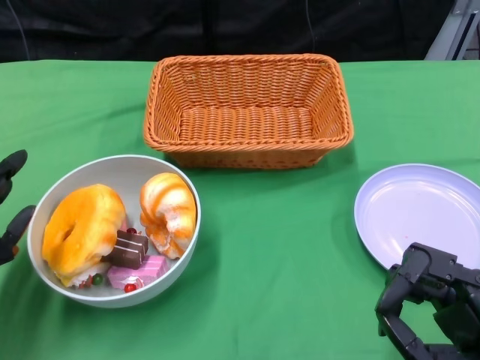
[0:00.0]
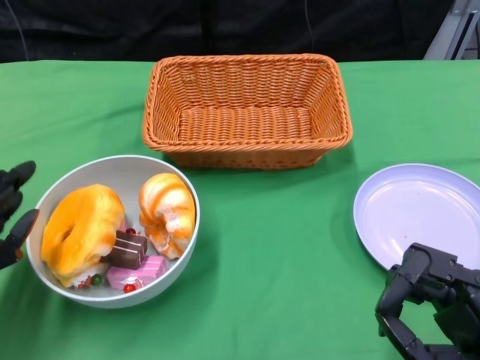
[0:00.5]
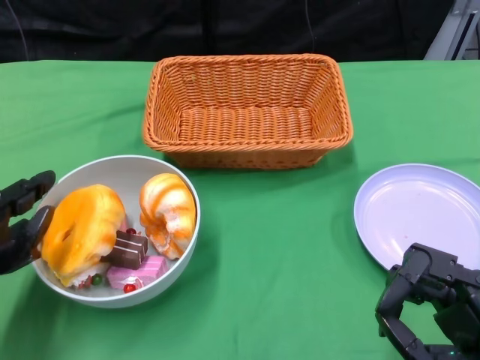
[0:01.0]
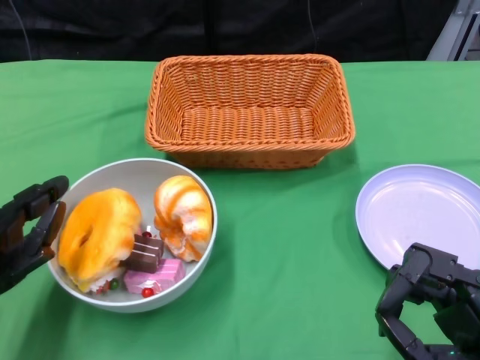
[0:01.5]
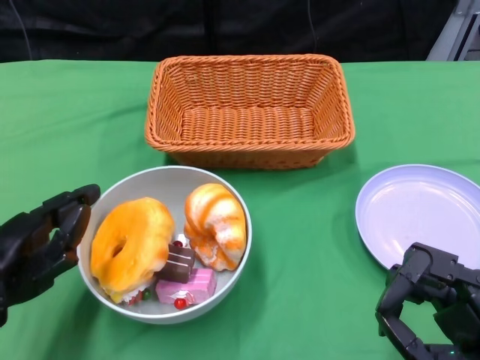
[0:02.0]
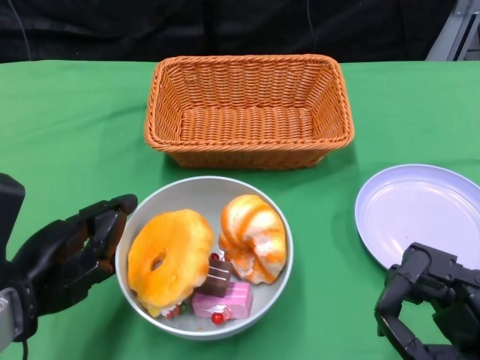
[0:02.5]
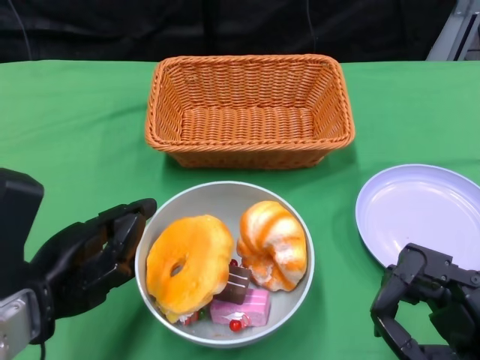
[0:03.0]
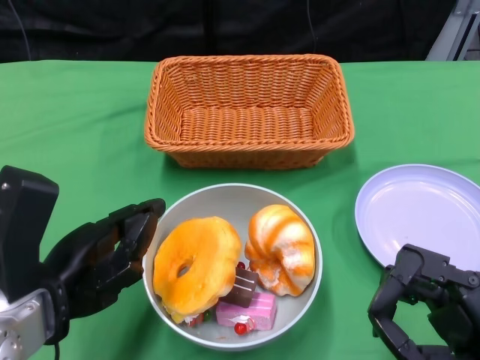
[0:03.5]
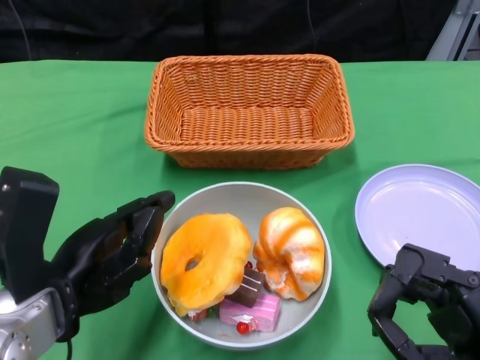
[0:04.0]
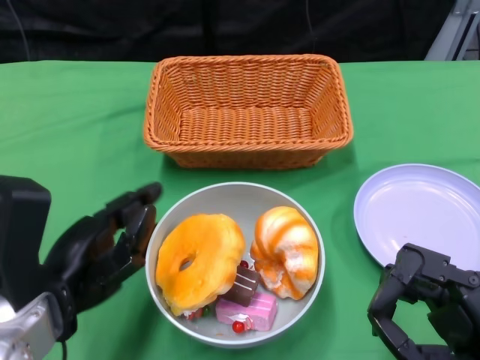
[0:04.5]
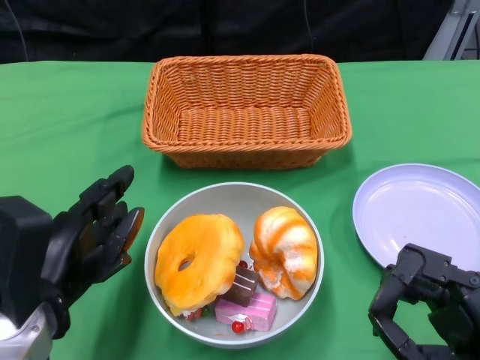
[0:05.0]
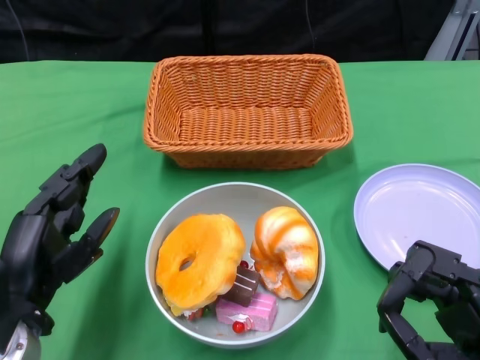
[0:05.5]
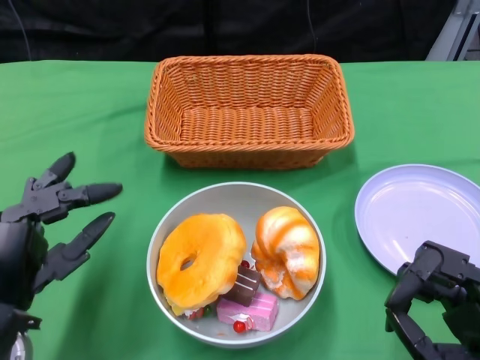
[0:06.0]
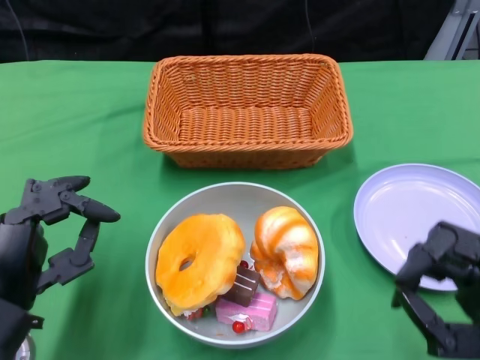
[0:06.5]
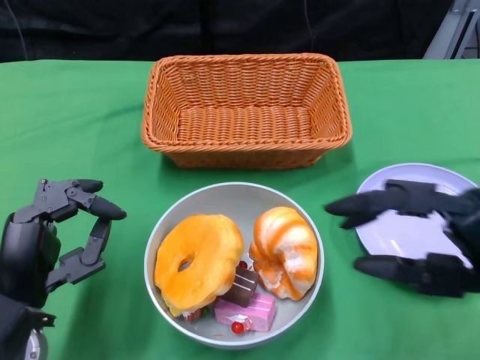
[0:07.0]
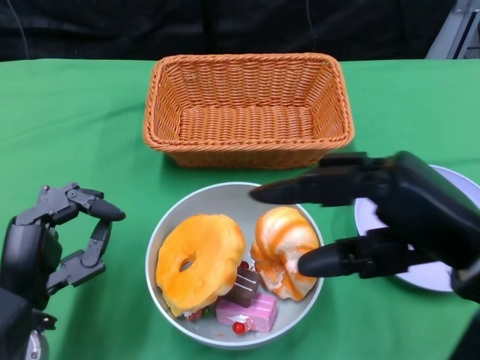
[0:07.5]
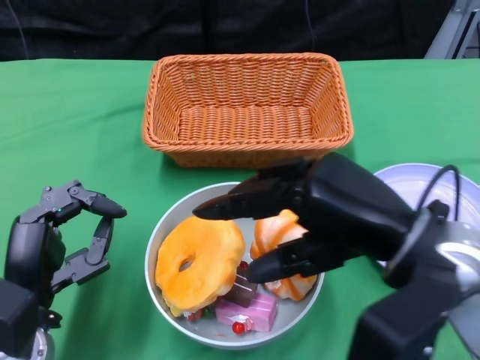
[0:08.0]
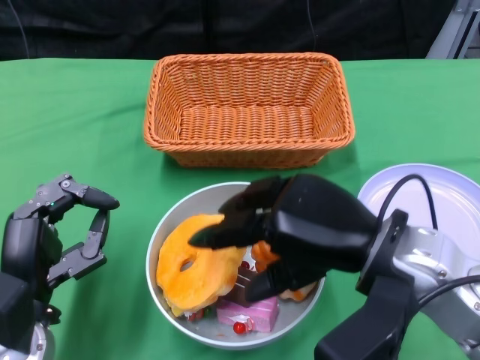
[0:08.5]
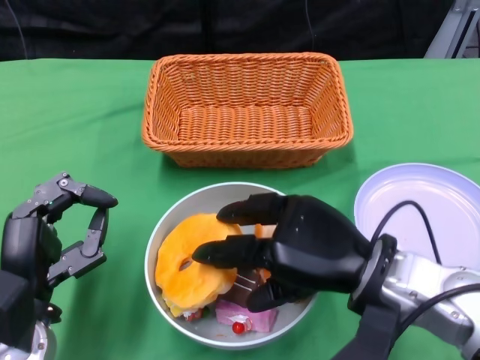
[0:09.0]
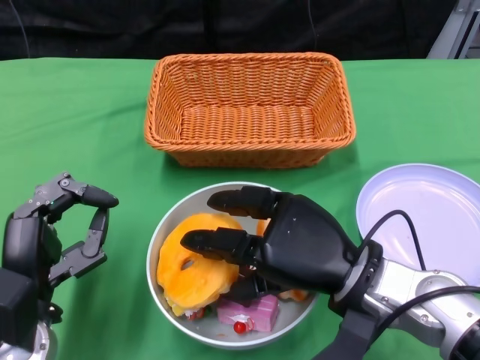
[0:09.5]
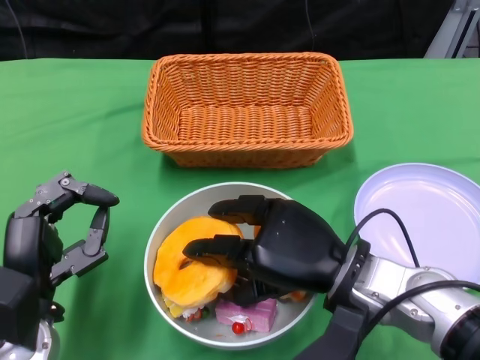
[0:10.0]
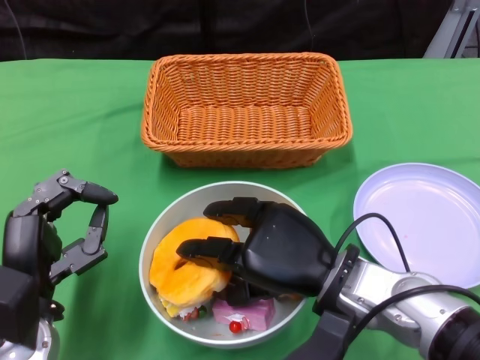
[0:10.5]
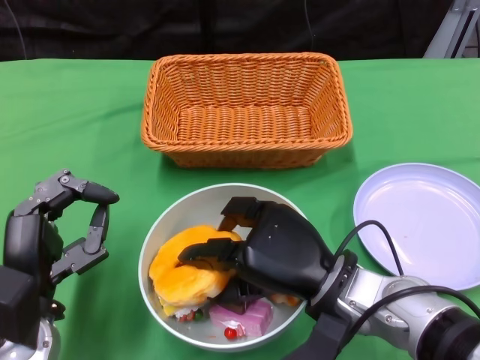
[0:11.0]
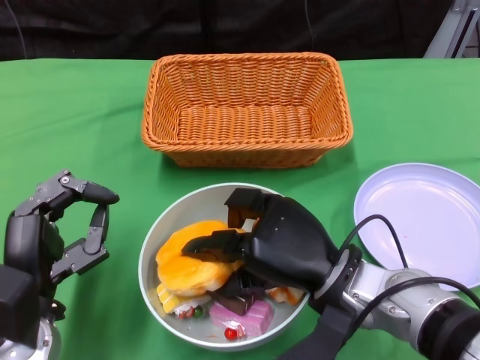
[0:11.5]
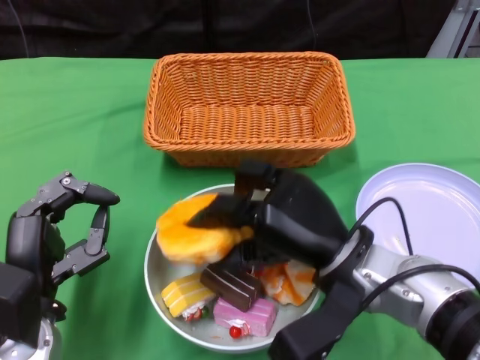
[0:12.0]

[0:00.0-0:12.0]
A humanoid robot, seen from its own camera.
Step, 0:00.0 to 0:03.5: Push the bowl to the center of the table using the left gripper.
0:02.0 to 0:04.0: The left hand is displaced to the right by about 5 cm.
0:04.0 to 0:06.0: The left hand moves downward, approximately 5 cm.
0:06.0 to 0:08.0: The right hand heads upward, forward and to the left, covering approximately 15 cm.
0:08.0 to 0:10.0: The right hand travels downward by about 10 cm.

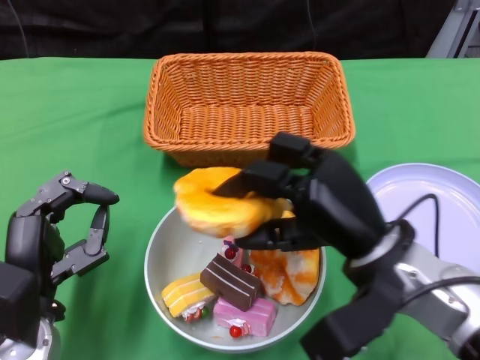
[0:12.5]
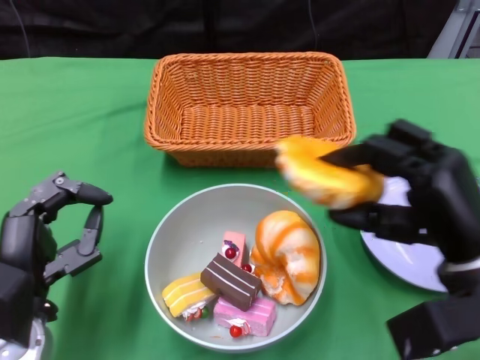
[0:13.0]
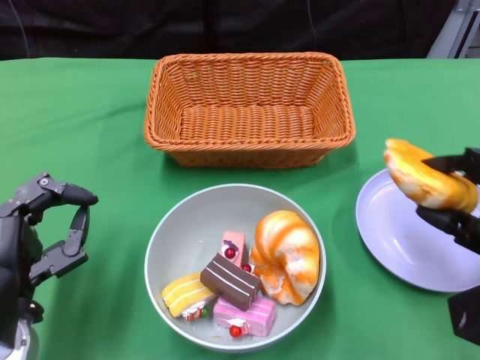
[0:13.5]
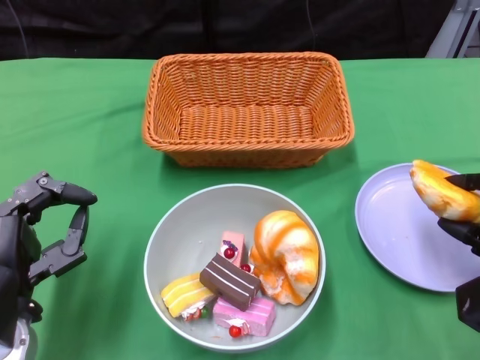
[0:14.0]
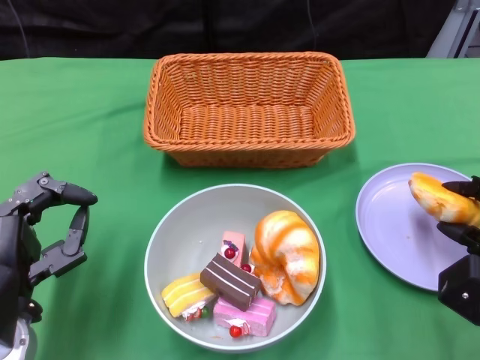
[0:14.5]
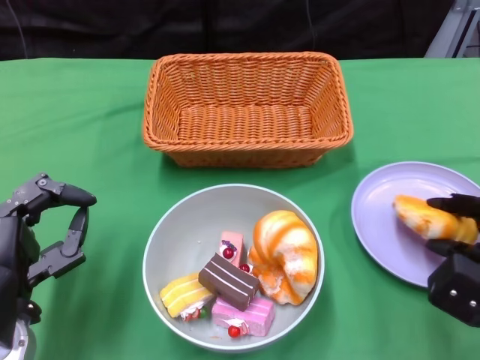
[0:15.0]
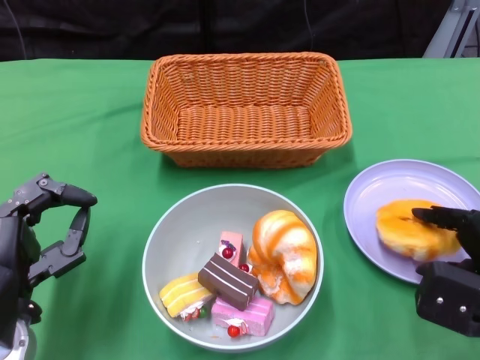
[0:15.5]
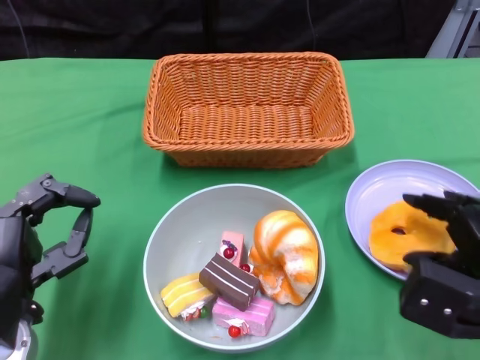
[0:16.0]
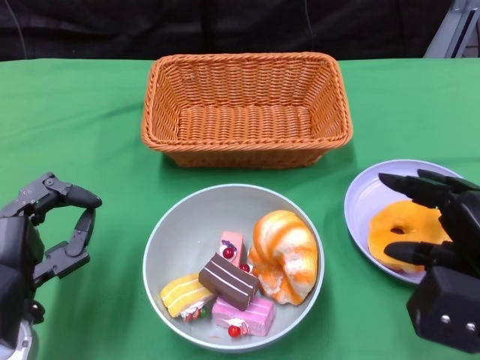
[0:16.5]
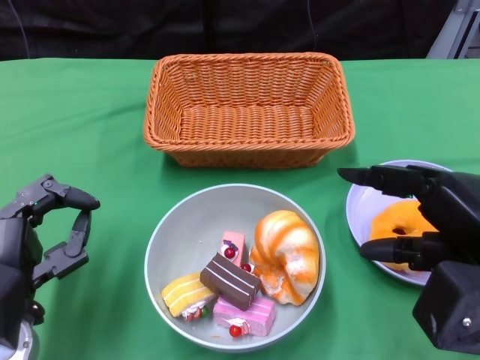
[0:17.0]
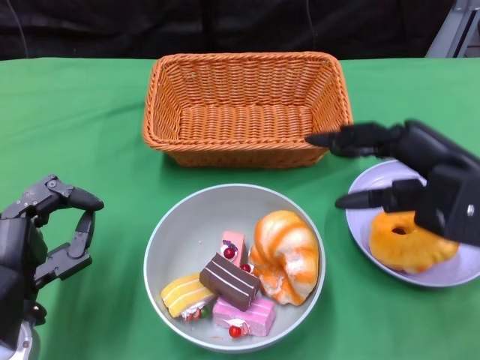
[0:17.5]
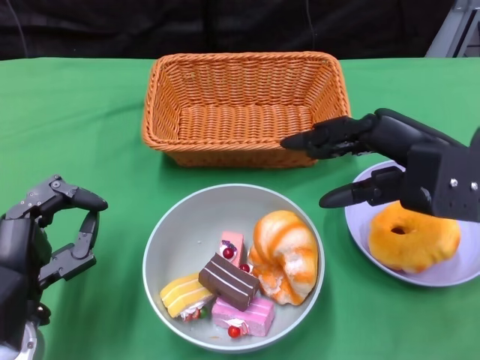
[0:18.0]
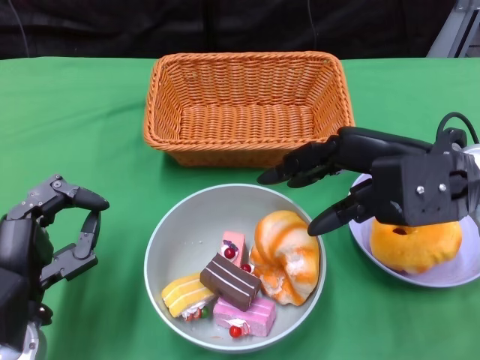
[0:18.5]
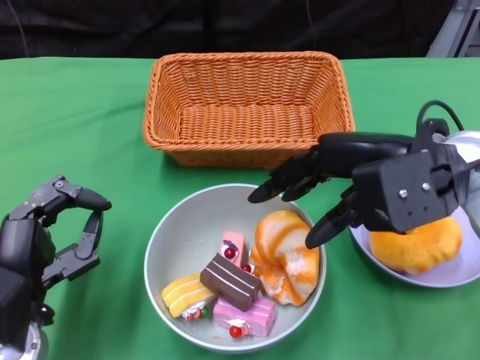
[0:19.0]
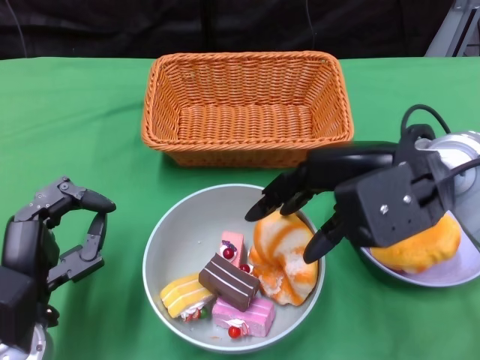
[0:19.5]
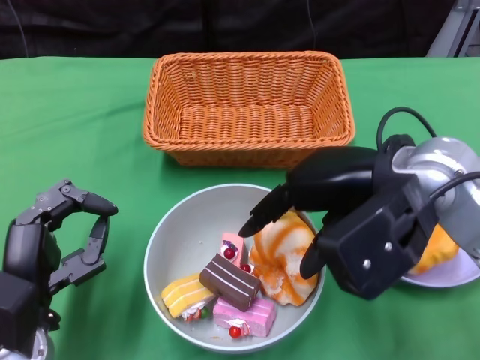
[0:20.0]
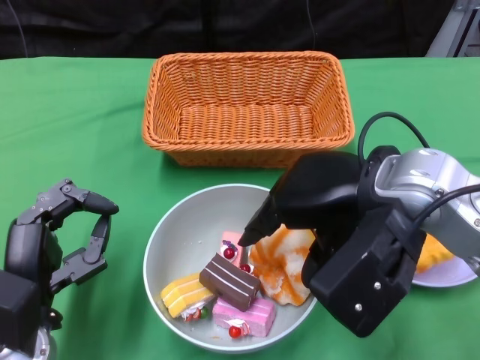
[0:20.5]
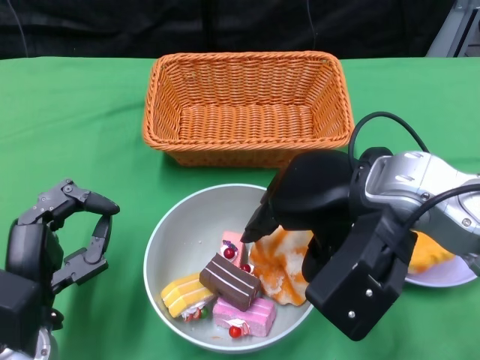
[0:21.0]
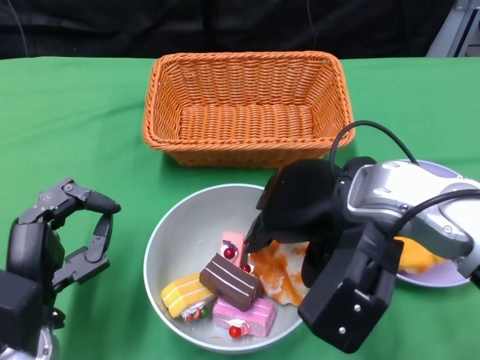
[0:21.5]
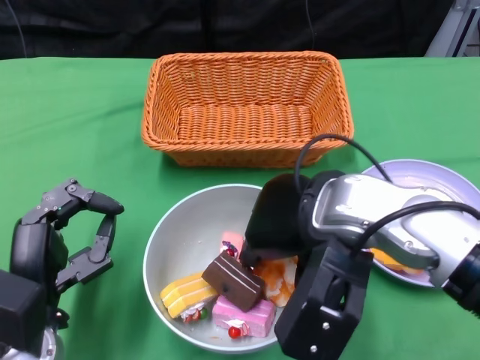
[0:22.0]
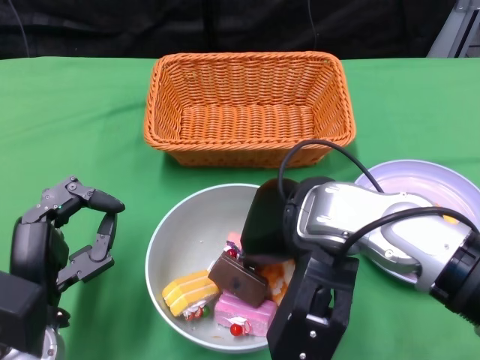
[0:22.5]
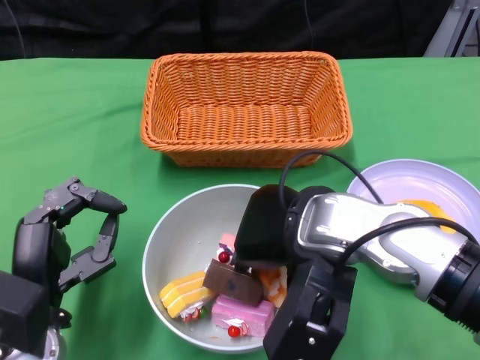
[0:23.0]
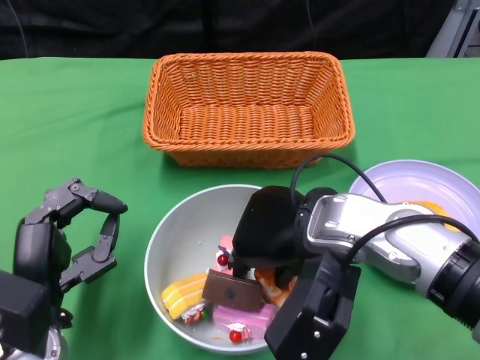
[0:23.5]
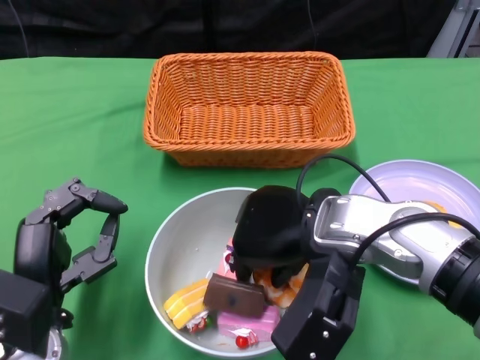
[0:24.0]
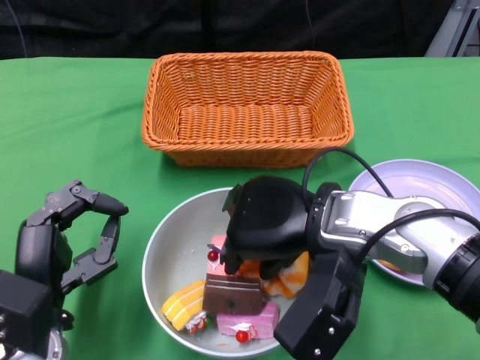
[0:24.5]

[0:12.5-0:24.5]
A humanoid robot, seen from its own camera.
0:12.5 to 0:14.5: The right hand moves to the right and downward, about 15 cm.
0:14.5 to 0:16.5: The right hand moves upward, some 5 cm.
0:16.5 to 0:18.5: The right hand is displaced forward, upward and to the left by some 15 cm.
0:18.5 to 0:20.5: The right hand shifts approximately 5 cm to the left.
0:20.5 to 0:22.5: The right hand heads to the left, covering about 5 cm.

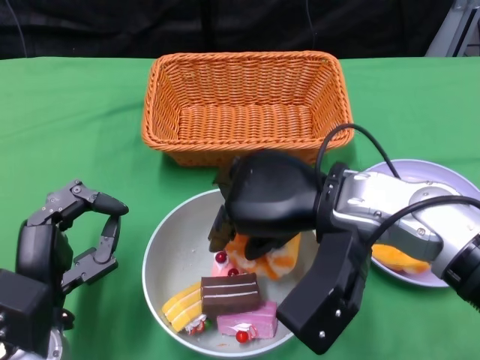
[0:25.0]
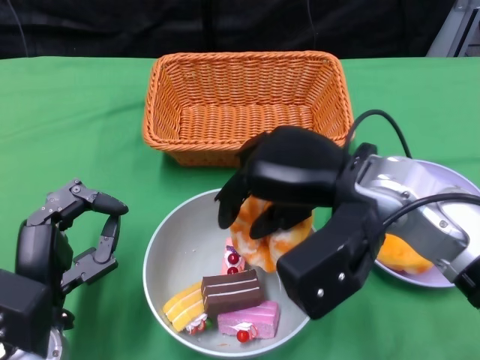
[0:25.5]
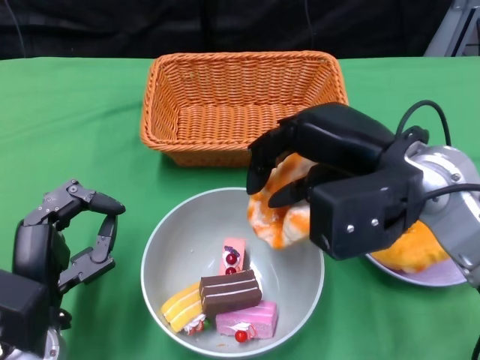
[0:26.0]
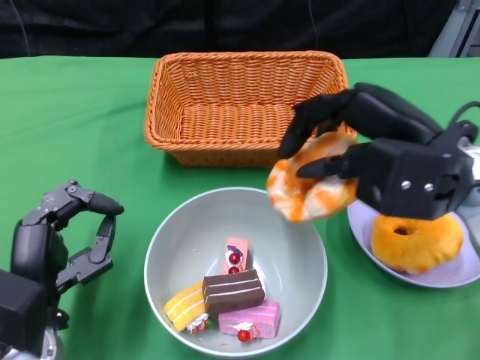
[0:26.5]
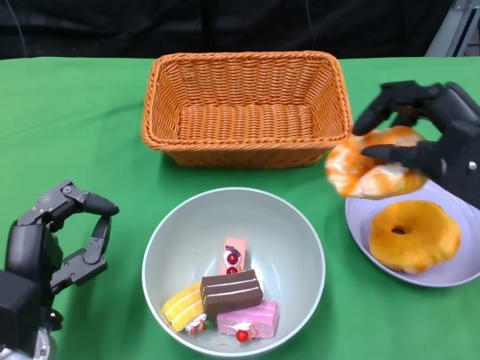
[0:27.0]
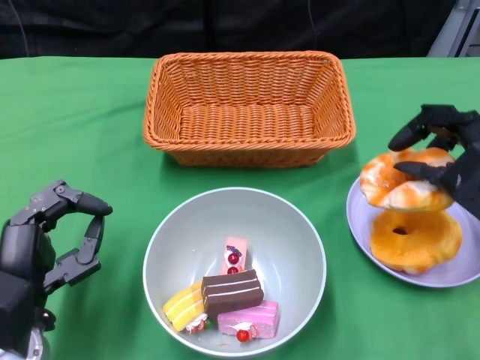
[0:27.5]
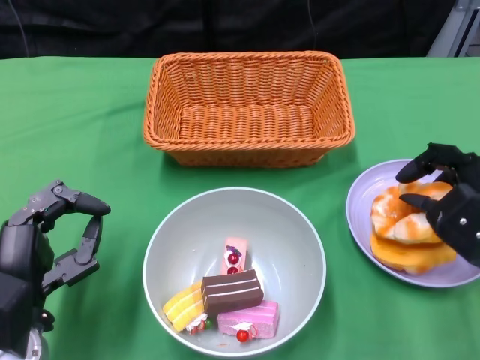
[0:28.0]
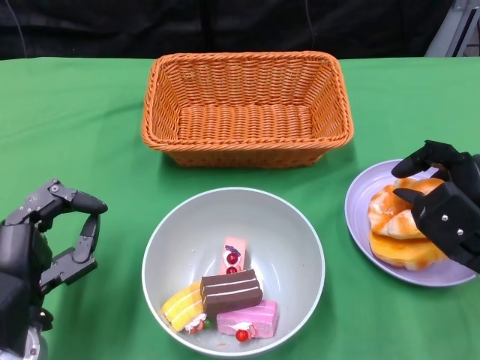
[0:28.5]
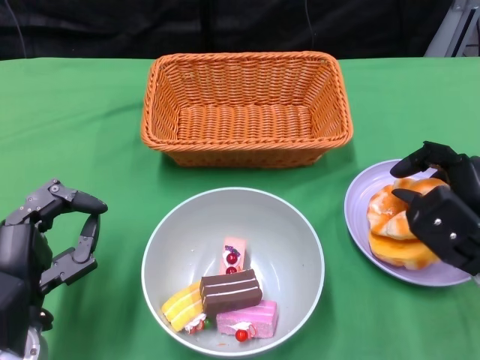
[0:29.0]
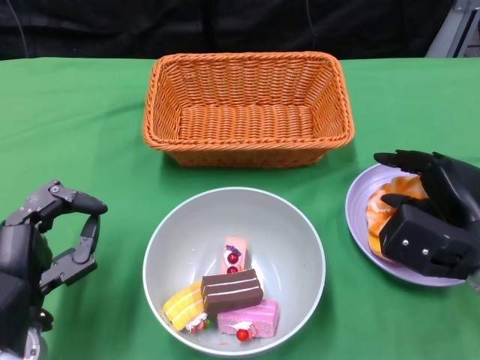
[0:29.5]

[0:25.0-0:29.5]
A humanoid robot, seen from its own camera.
0:25.0 to 0:27.0: The right hand heads to the right, covering about 15 cm.
0:27.0 to 0:29.5: The right hand is displaced downward by roughly 10 cm.
